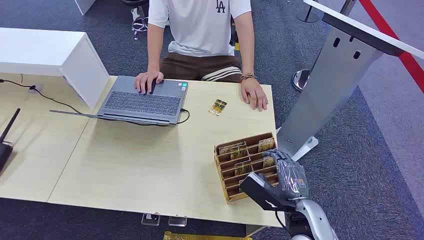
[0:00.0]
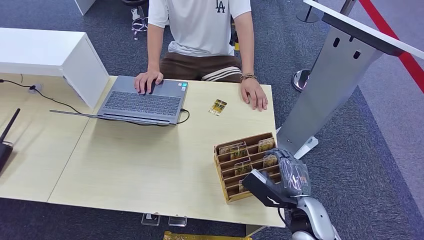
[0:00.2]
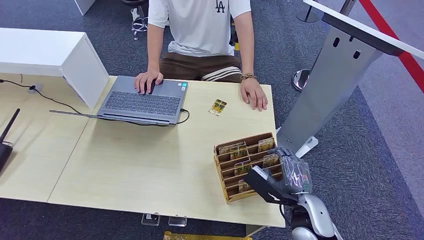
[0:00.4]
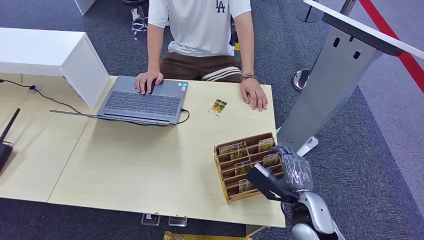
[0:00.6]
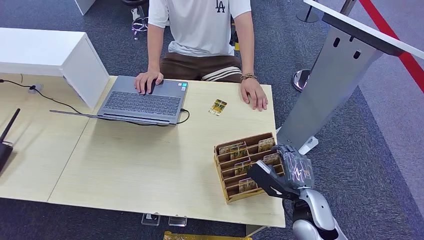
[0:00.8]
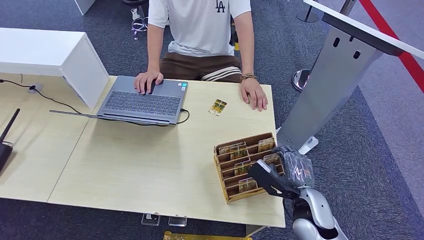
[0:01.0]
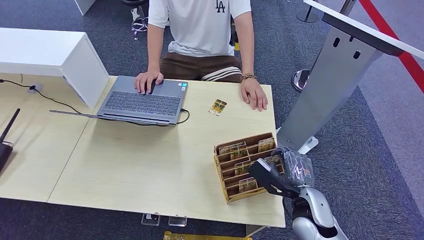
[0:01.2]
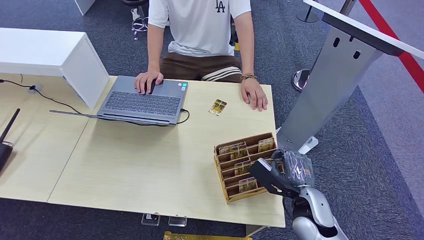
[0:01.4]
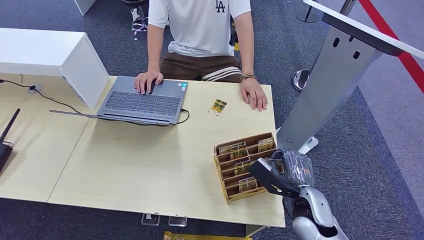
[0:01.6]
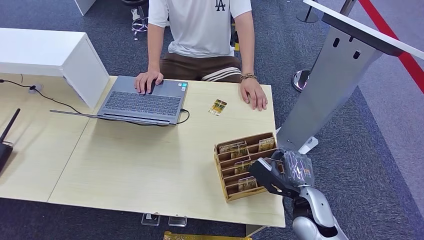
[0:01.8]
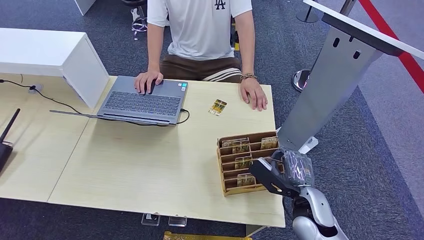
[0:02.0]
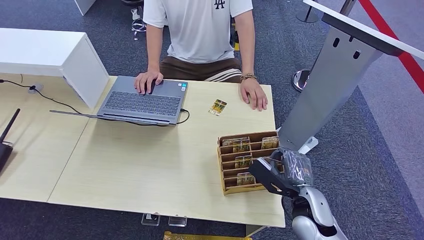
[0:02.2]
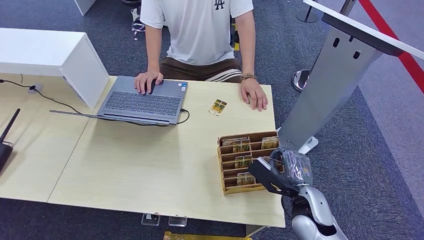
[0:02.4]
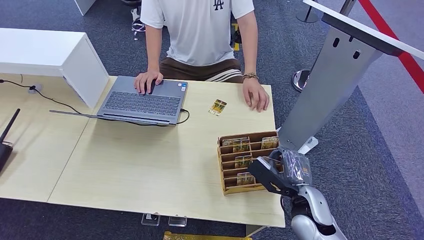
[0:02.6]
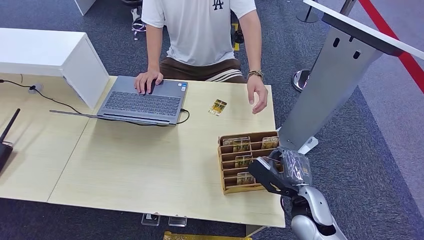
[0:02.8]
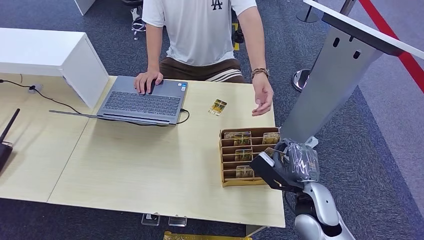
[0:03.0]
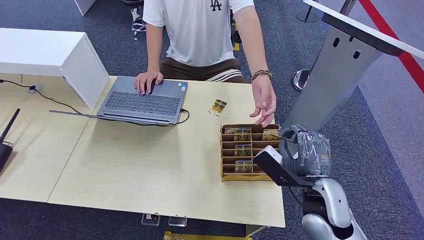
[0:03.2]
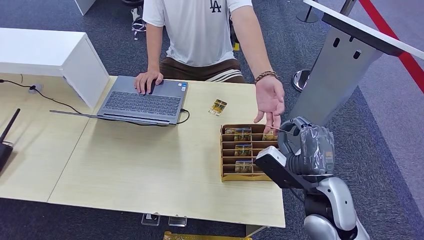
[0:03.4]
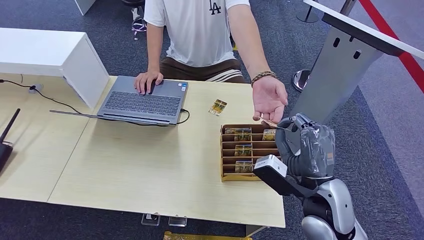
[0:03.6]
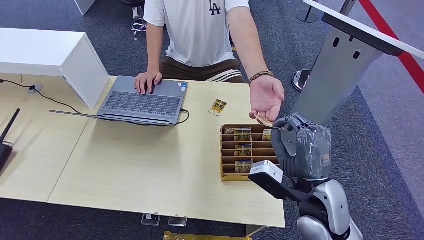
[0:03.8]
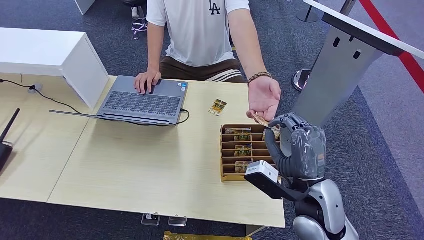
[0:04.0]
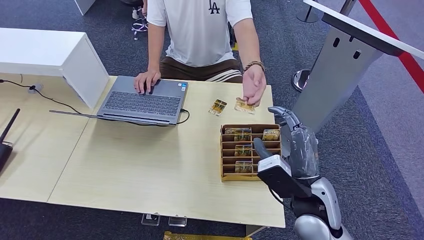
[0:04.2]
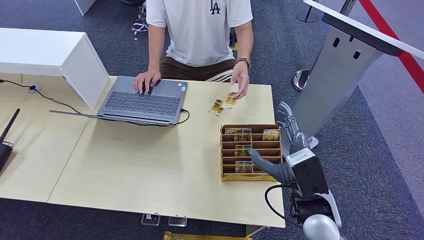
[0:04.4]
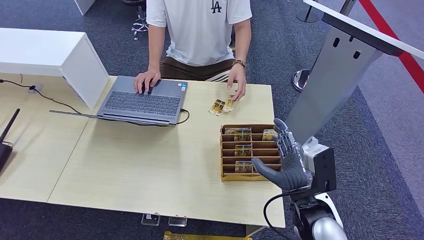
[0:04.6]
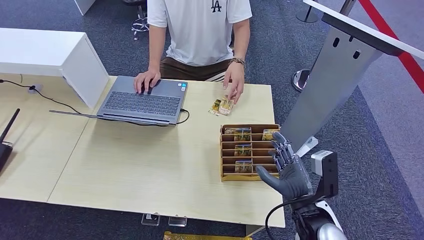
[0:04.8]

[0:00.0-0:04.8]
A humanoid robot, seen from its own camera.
Step, 0:00.0 to 0:03.4: Pick up the room card from the card holder.
Step, 0:03.8 to 0:04.8: Hand the room card to the target.
0:01.6 to 0:03.2: The right hand goes about 5 cm upward.
